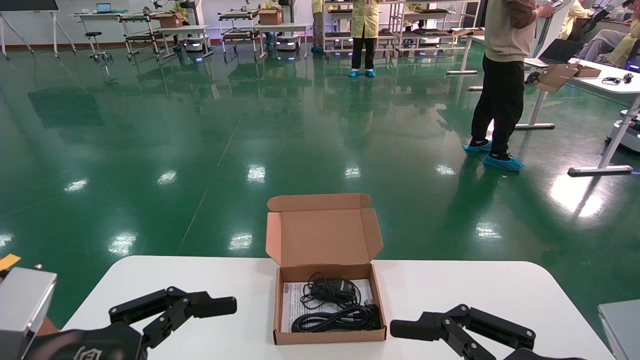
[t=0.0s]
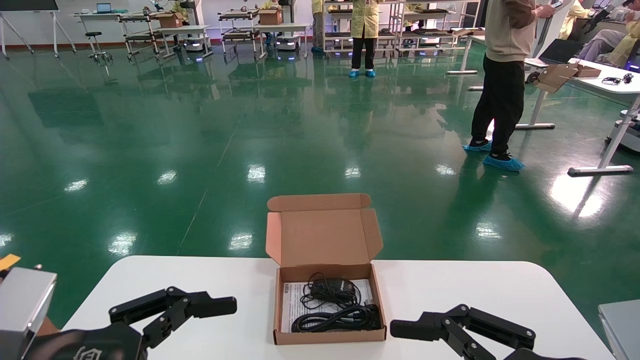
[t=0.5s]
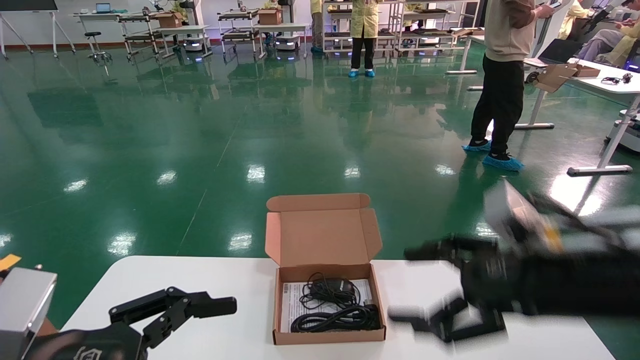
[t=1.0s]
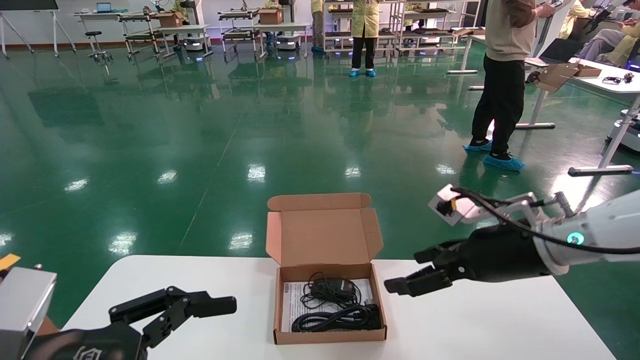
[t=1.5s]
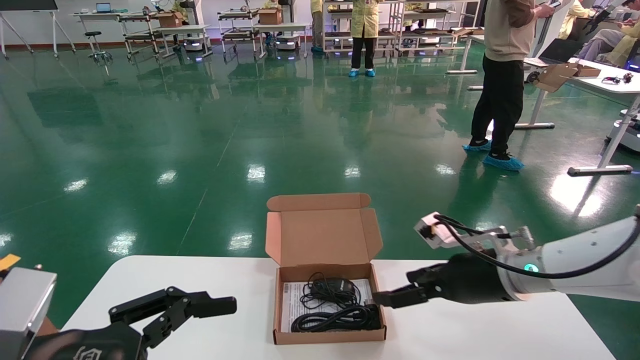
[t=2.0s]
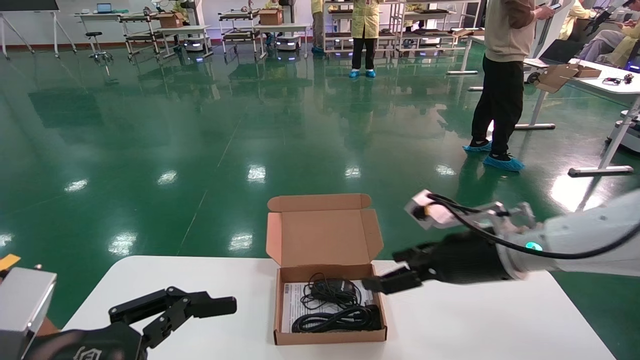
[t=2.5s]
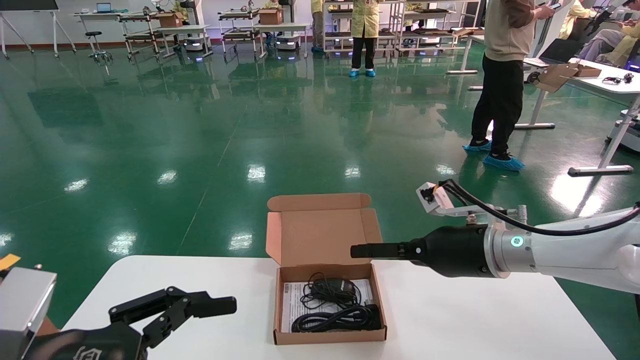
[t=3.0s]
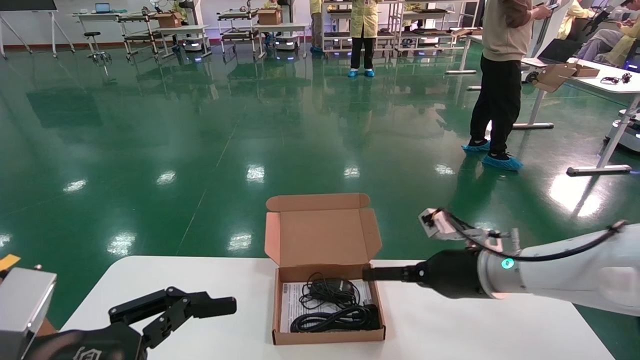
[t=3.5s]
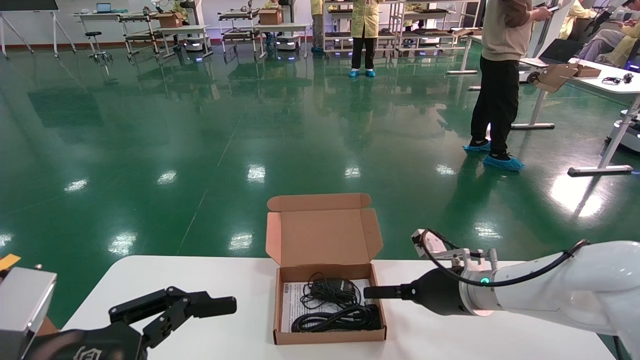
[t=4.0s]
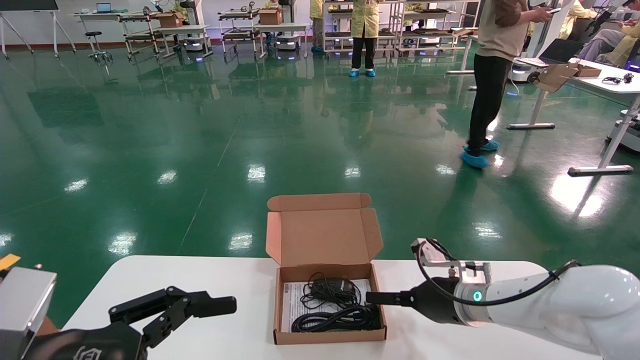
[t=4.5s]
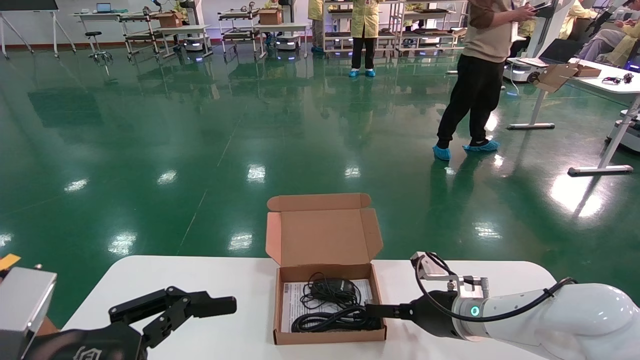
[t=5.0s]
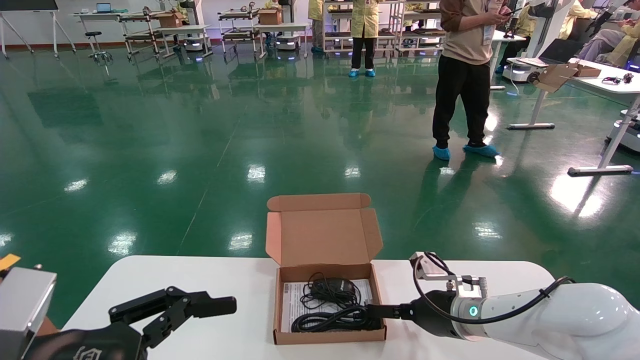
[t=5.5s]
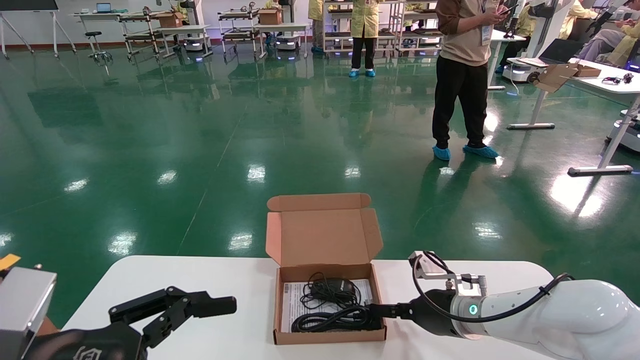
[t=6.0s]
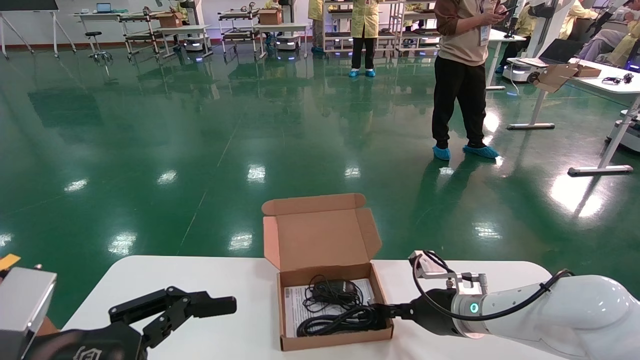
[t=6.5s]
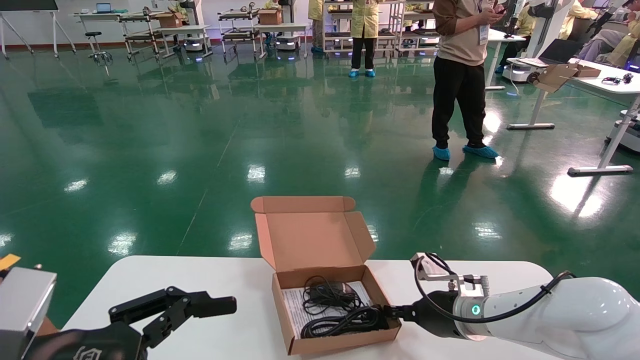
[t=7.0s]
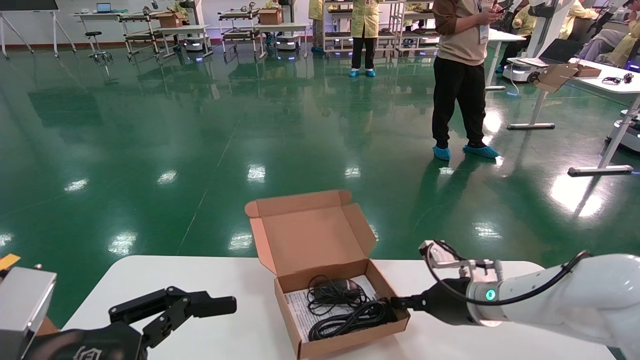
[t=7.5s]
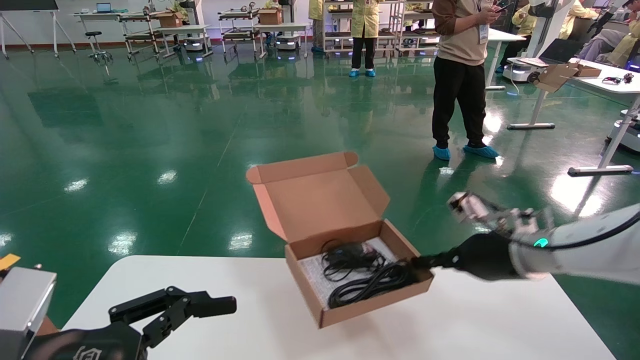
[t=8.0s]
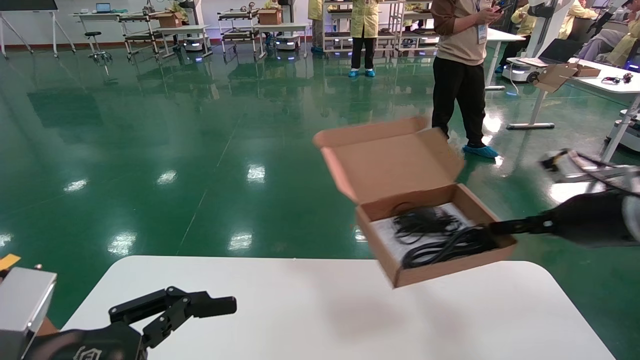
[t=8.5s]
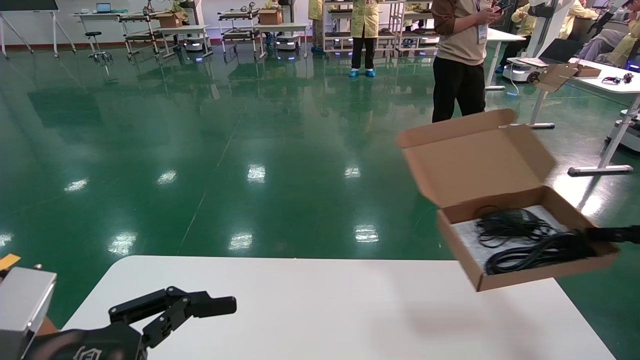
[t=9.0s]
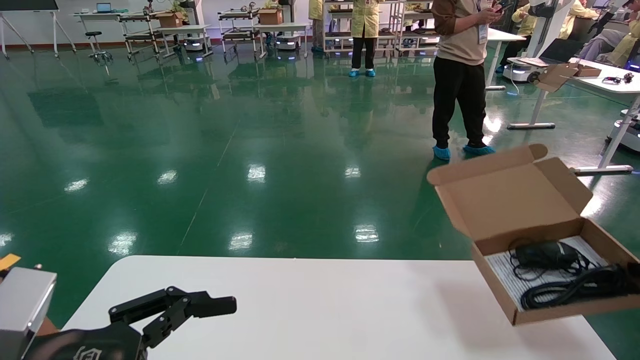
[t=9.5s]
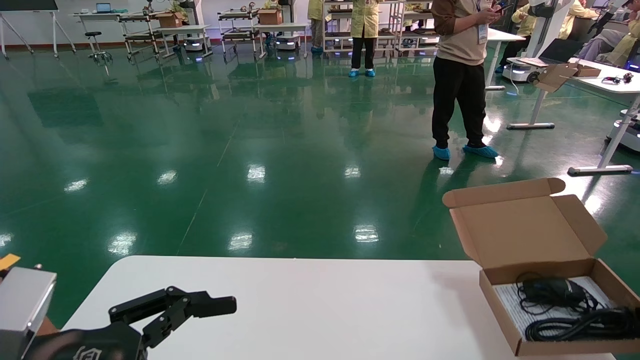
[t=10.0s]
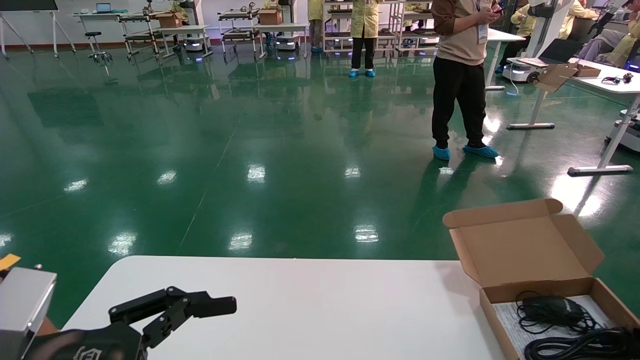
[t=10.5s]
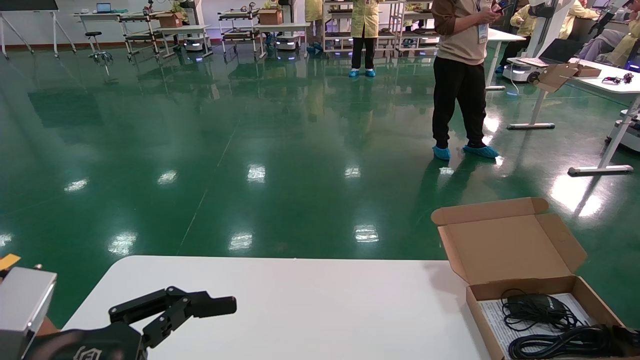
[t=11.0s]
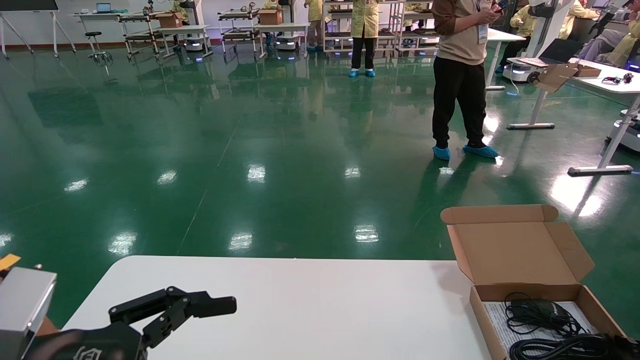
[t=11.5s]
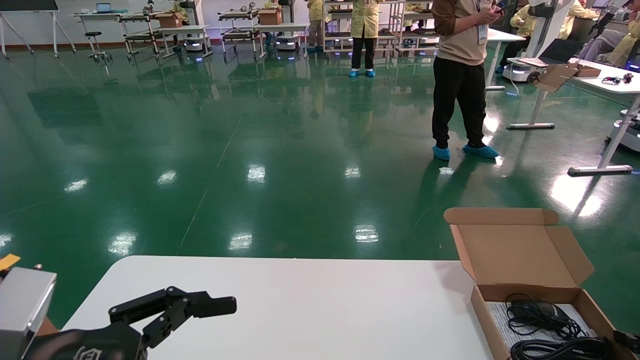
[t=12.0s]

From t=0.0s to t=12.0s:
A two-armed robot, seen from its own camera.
Task of the whole recording: move the position of the storage box with accessories on the table.
Step, from t=1.0s to t=7.0s: Grab and pick up the open mouse box from the accessory packaging area.
From t=0.0s to t=2.0s: The right gripper travels forward by some 25 cm.
From t=2.0s to t=4.0s: The right gripper heads downward, covering approximately 5 cm.
From t=4.0s to t=6.0s: The grippers stay close to where they were, moving slightly.
From t=6.0s to t=8.0s: The right gripper is displaced upward and to the right by about 15 cm, and closes up.
From t=8.0s to t=10.0s: The right gripper moves to the right, some 25 cm.
From t=10.0s to t=12.0s: The right gripper shifts some 5 cm downward.

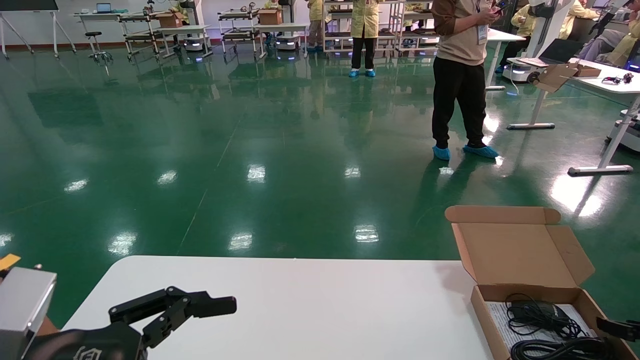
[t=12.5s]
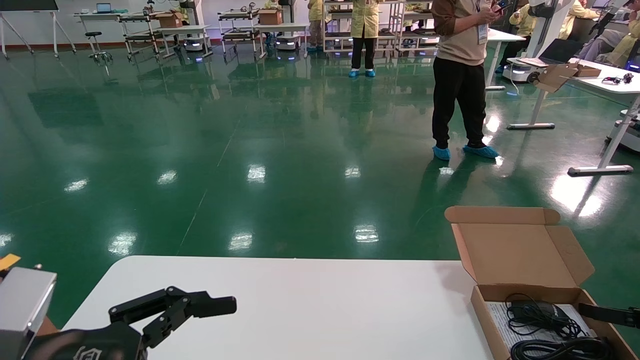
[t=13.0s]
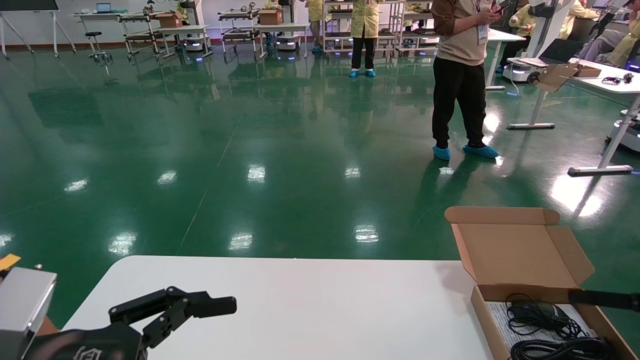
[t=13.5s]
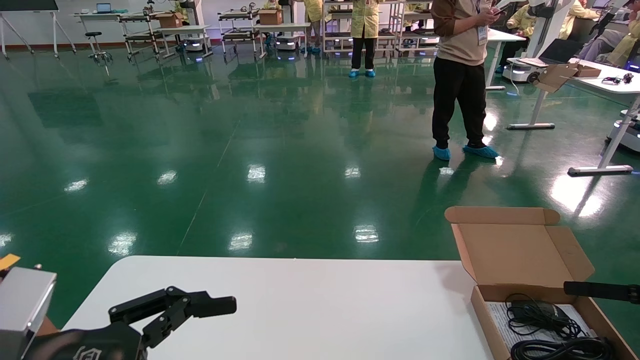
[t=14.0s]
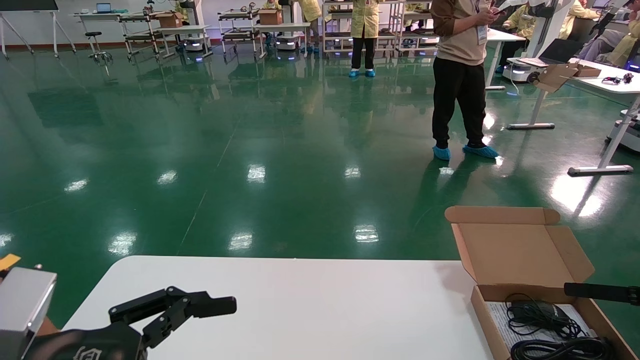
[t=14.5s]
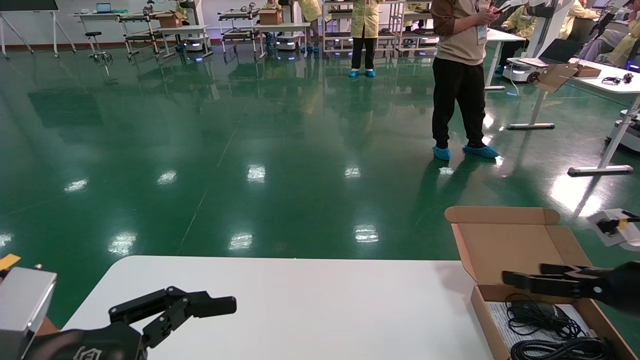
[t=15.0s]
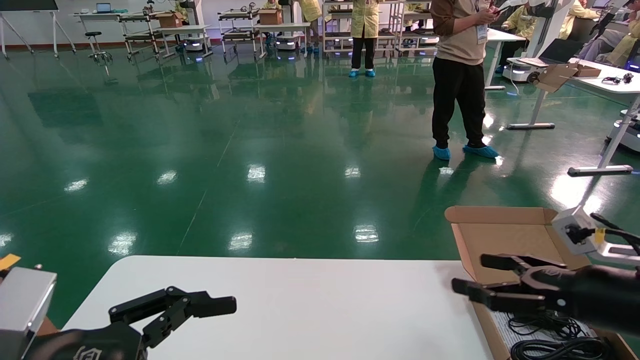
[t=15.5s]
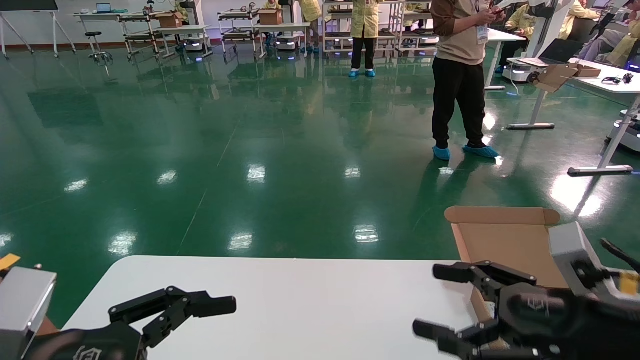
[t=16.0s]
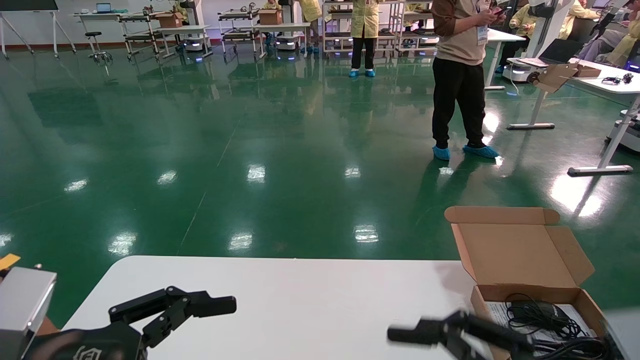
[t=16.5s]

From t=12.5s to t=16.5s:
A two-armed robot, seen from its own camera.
Task of the whole recording: move the position of the storage box with accessories on the table.
From t=12.5s to t=14.5s: The right gripper moves upward, about 10 cm, and opens.
From t=14.5s to t=16.5s: The right gripper heads to the left and backward, covering about 25 cm.
